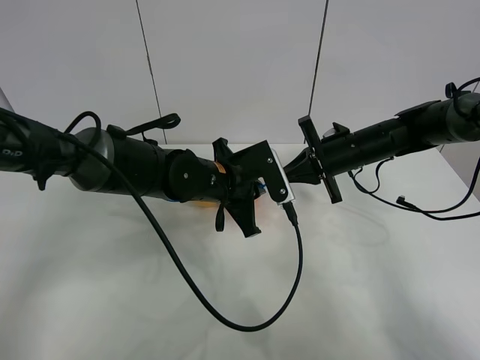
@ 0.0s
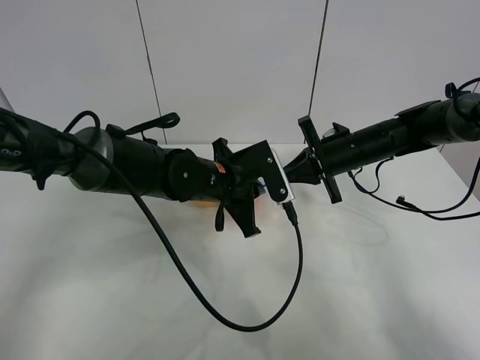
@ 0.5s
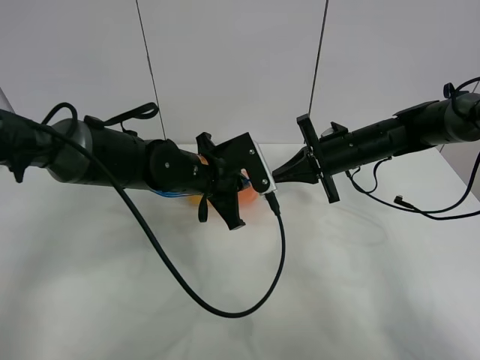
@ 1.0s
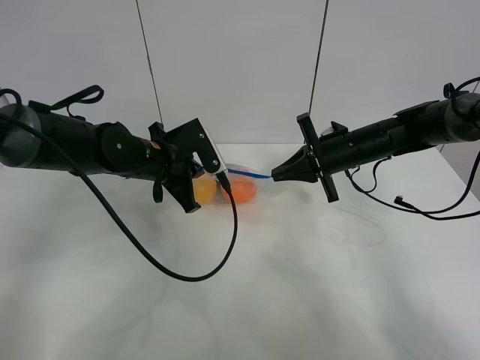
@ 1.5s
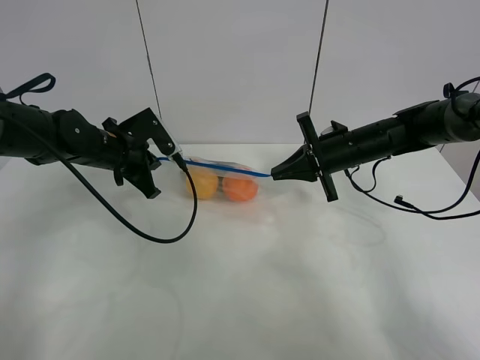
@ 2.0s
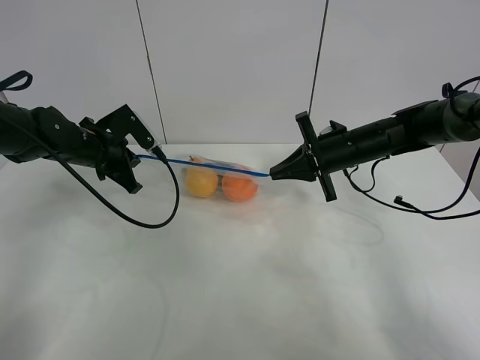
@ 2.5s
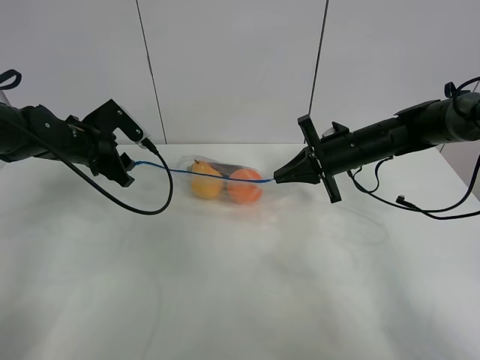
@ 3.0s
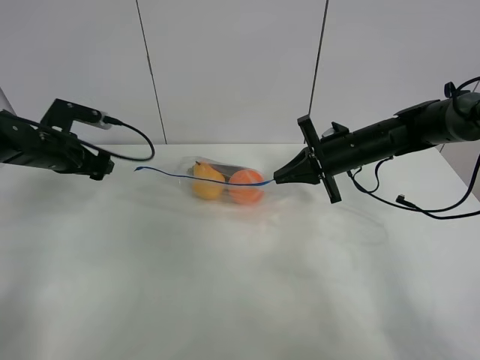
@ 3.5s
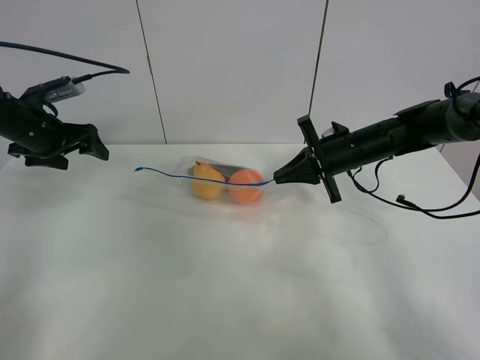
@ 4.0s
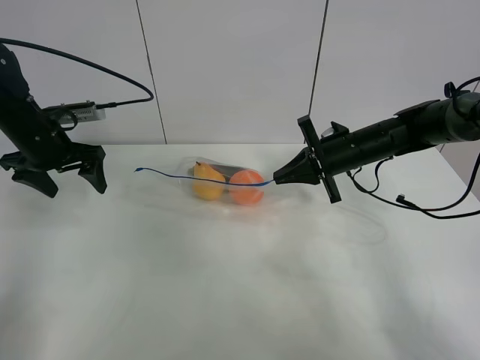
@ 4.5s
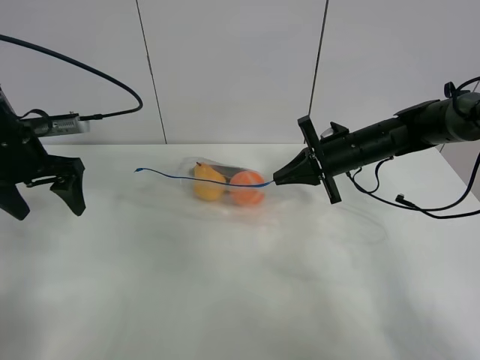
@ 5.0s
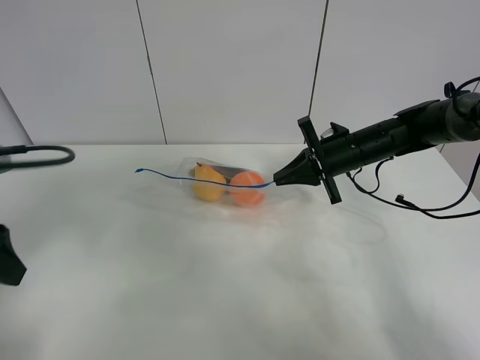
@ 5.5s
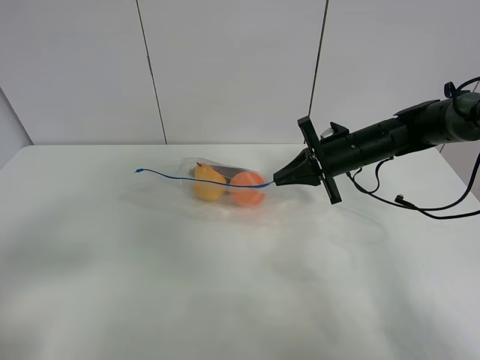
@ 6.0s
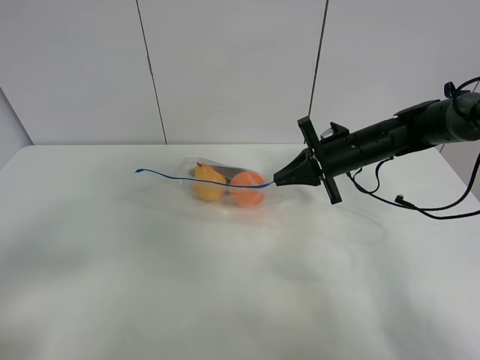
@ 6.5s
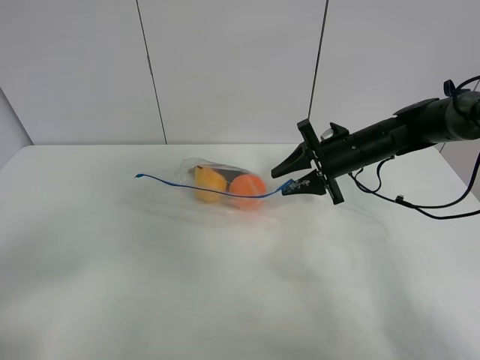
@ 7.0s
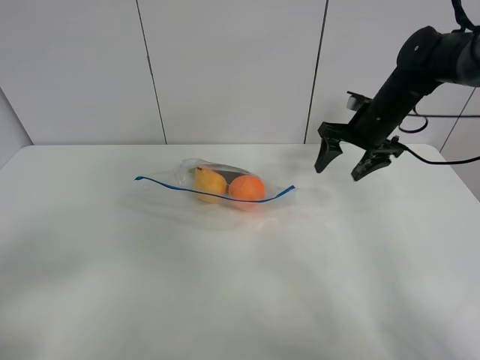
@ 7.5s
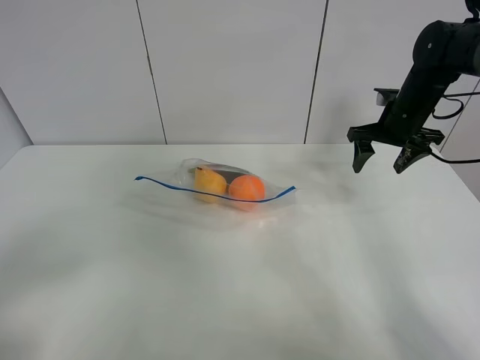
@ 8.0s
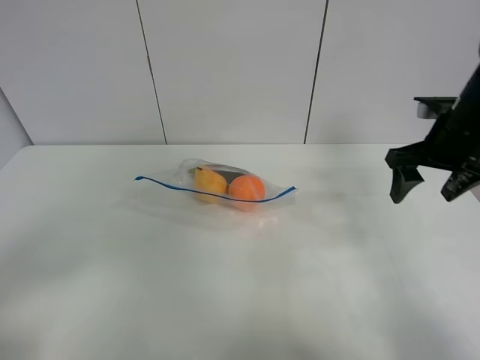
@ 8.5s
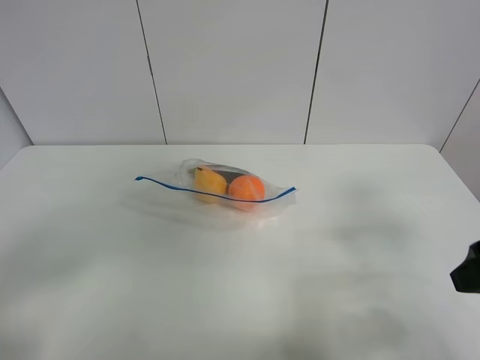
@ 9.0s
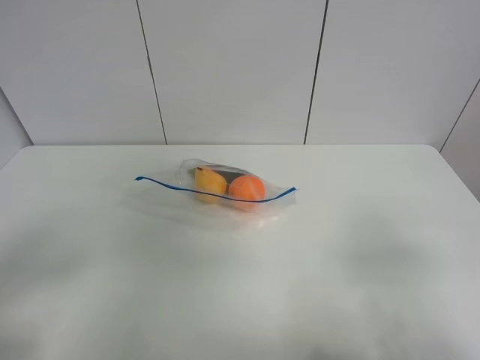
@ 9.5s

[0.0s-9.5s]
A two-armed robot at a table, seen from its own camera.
Step, 0.0s to 3.0s: Pull the fruit bag with left gripper.
0.0s to 2.0s: The left gripper goes roughly 20 cm to the left.
2.0s to 4.0s: The left gripper goes approximately 10 cm to the left, and opens up.
4.0s to 5.5s: The left gripper is displaced backward by about 25 cm.
5.5s to 7.5s: The left gripper moves backward, approximately 15 cm. The right gripper is displaced upward by roughly 5 cm, and opens.
7.5s to 9.5s: The right gripper shifts some 40 cm backward.
